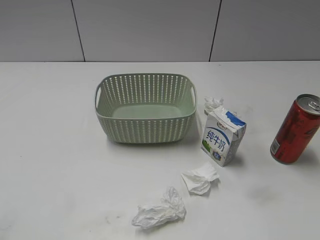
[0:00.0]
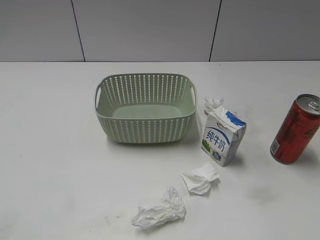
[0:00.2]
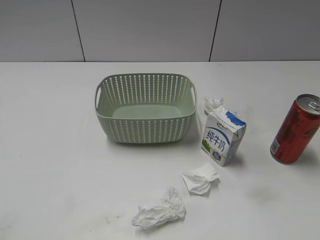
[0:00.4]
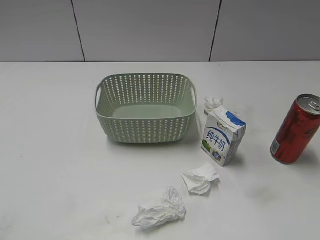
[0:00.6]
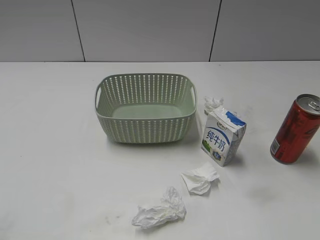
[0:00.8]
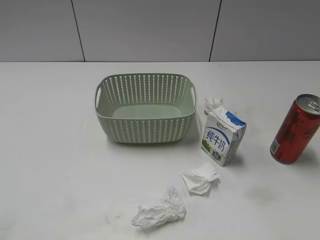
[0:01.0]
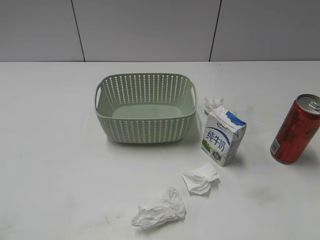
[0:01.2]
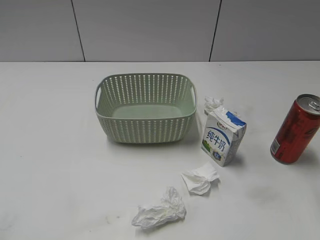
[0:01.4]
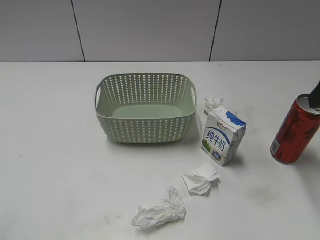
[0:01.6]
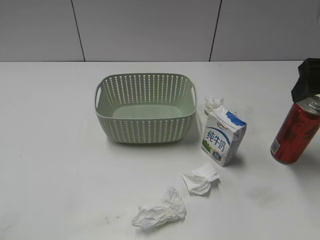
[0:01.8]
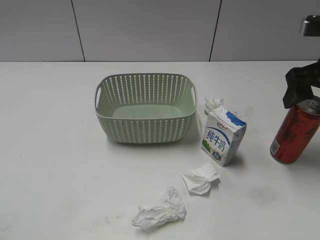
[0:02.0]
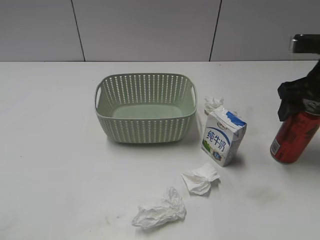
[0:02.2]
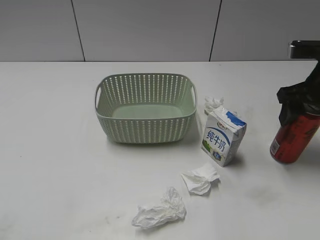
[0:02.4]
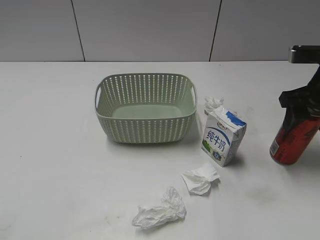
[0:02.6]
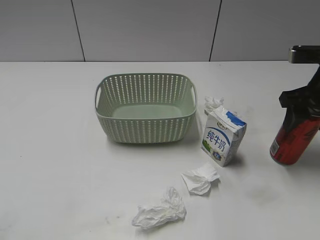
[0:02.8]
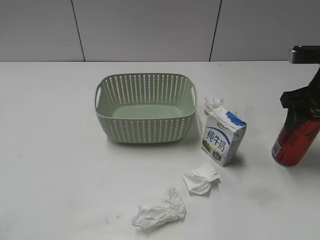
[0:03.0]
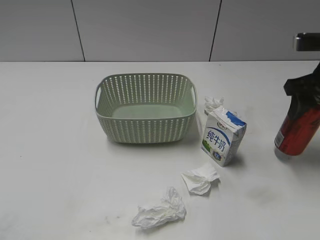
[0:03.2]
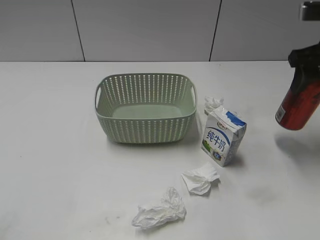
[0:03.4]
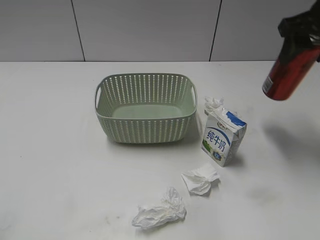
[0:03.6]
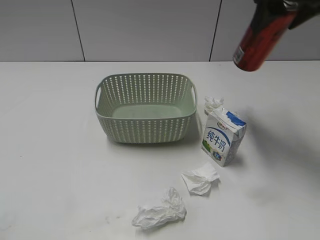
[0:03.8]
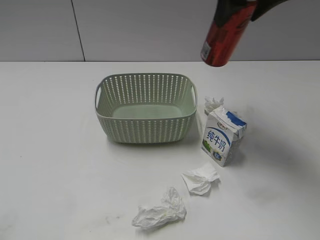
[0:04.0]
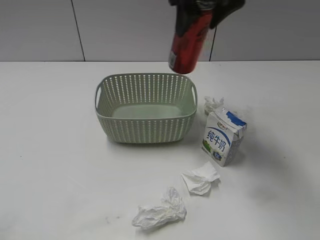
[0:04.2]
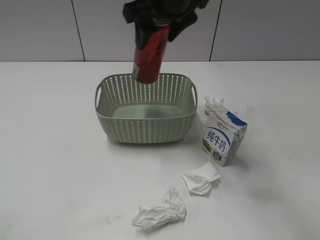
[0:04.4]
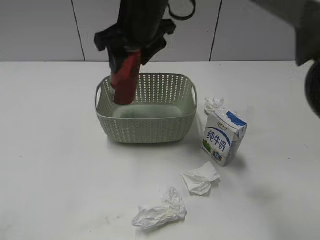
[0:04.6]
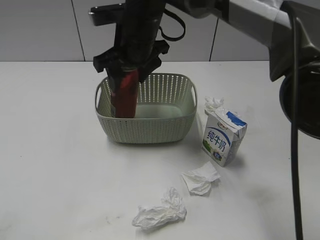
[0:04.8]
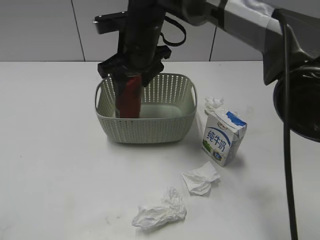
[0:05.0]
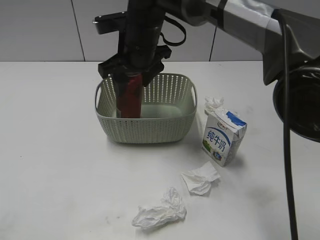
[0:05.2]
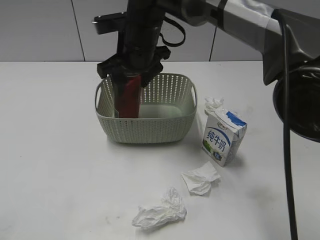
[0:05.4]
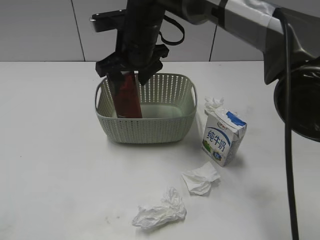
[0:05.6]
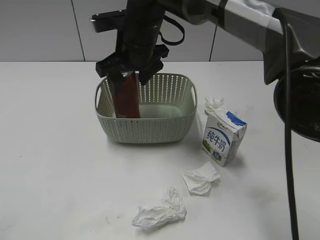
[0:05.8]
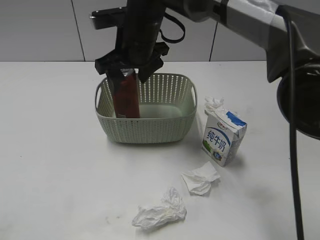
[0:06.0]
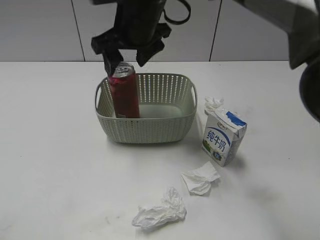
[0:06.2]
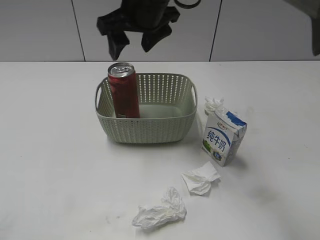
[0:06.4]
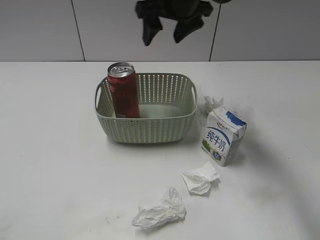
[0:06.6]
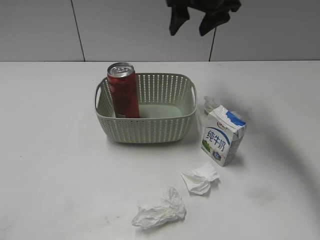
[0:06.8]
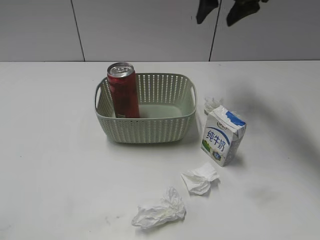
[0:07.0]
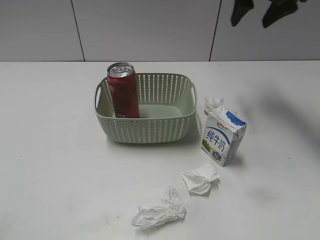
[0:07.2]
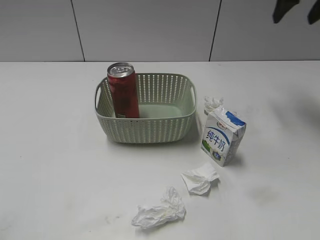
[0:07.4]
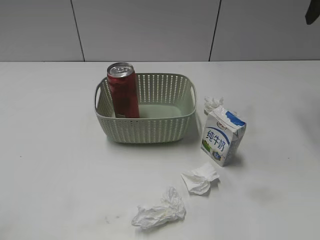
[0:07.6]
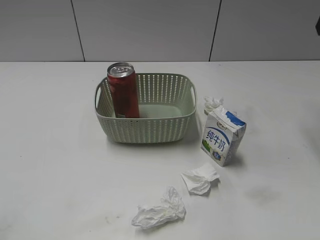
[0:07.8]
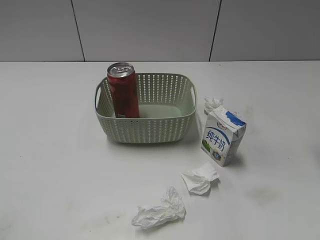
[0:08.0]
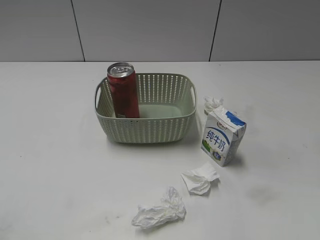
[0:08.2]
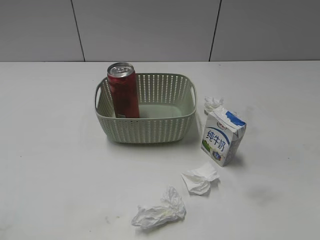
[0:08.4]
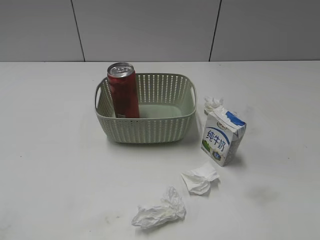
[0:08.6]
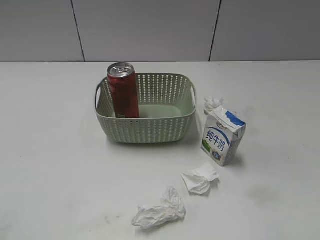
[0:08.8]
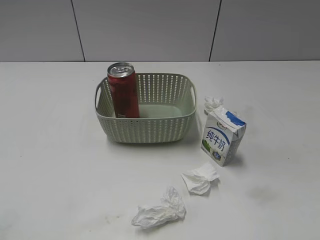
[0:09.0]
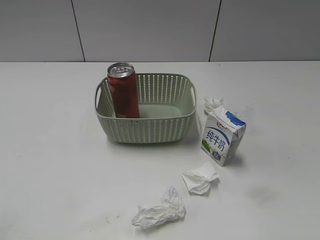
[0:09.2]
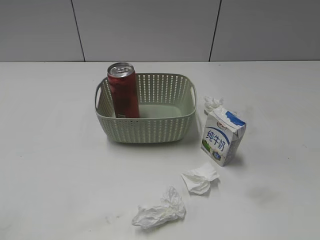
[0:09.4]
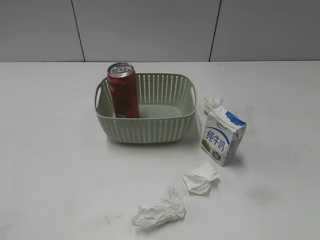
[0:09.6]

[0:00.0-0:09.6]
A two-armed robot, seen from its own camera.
Step, 0:01.6 to 0:03.0: Grasp the cola can with right gripper.
Step, 0:03.2 to 0:06.4: Place the cola can in the basket with right gripper.
0:01.6 to 0:03.2: The right gripper is displaced forward and downward by some 10 cm, and closes up.
0:03.2 to 0:04.8: The right gripper shifts some 30 cm to the left.
0:04.8 to 0:06.4: The right gripper is displaced upward by approximately 5 cm, and opens up.
0:06.4 to 0:08.0: The right gripper shifts approximately 30 cm to the right.

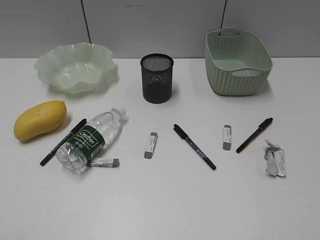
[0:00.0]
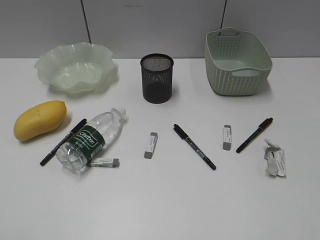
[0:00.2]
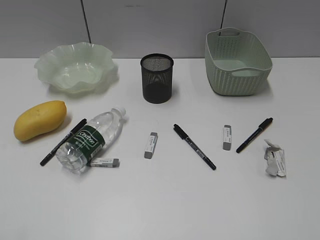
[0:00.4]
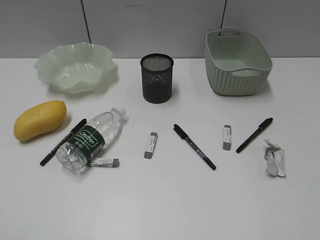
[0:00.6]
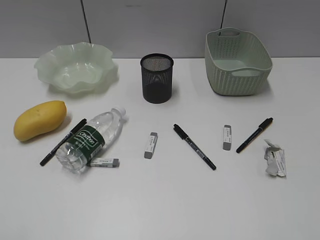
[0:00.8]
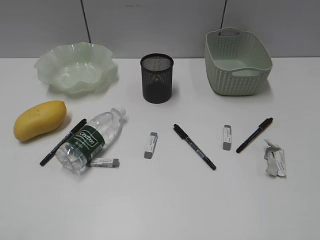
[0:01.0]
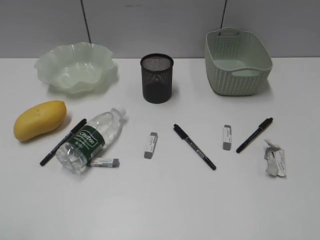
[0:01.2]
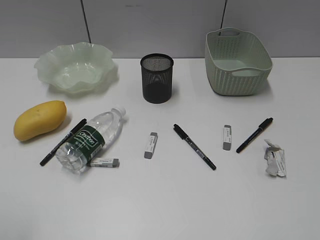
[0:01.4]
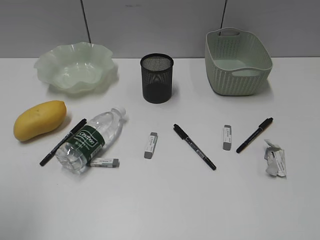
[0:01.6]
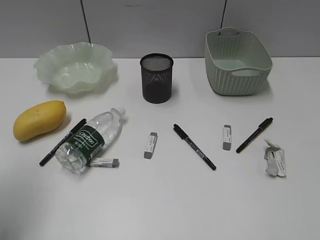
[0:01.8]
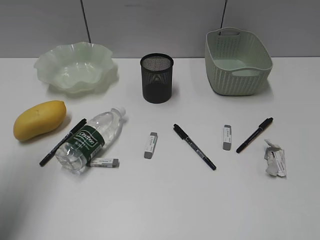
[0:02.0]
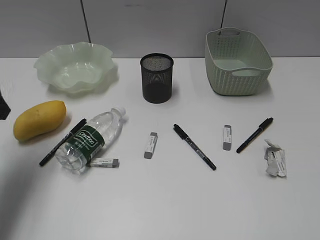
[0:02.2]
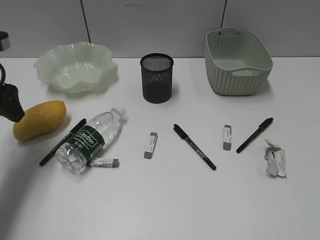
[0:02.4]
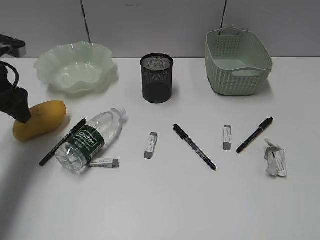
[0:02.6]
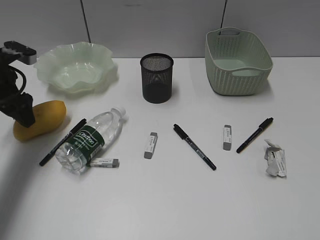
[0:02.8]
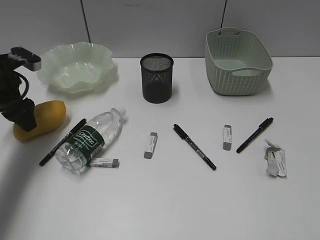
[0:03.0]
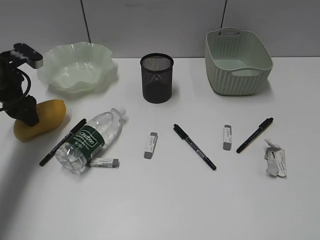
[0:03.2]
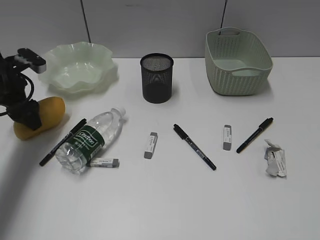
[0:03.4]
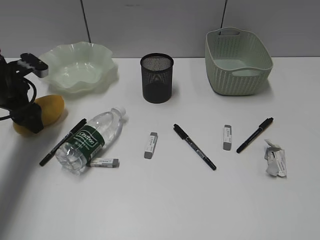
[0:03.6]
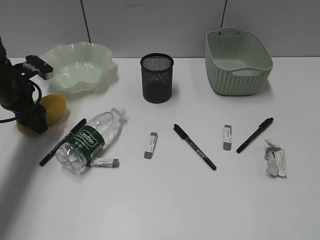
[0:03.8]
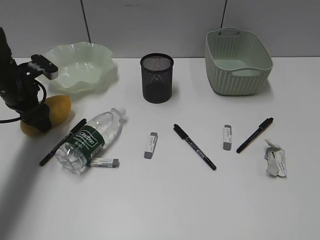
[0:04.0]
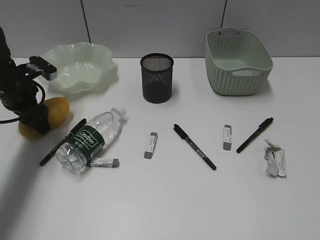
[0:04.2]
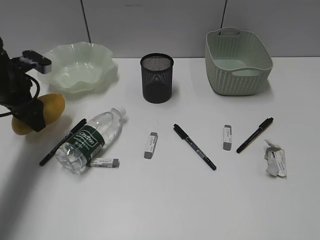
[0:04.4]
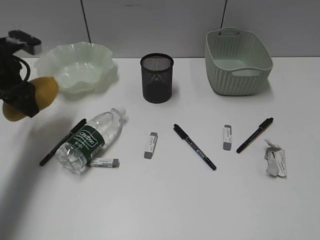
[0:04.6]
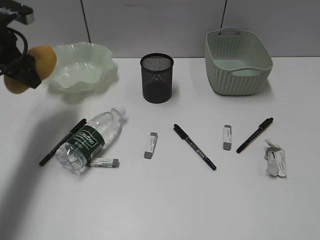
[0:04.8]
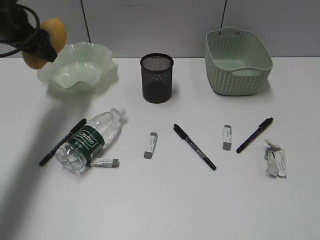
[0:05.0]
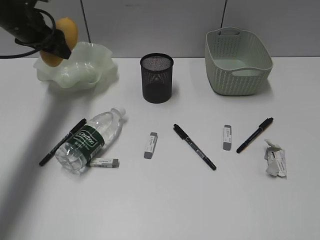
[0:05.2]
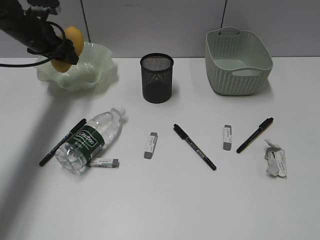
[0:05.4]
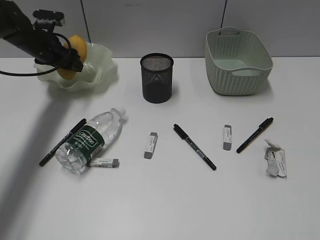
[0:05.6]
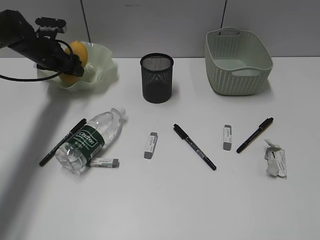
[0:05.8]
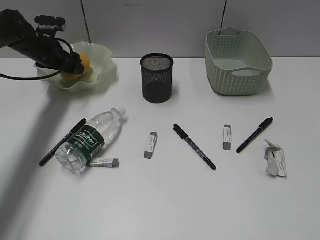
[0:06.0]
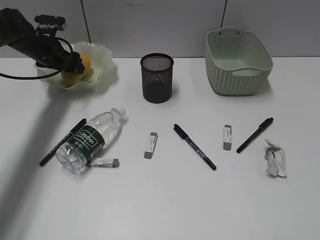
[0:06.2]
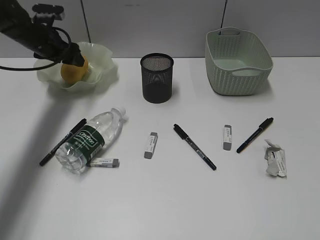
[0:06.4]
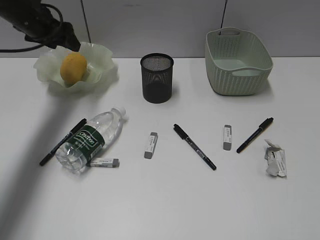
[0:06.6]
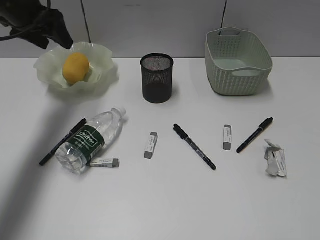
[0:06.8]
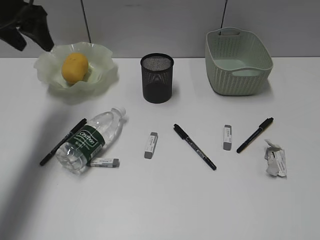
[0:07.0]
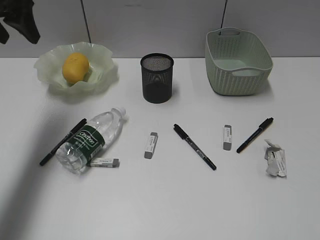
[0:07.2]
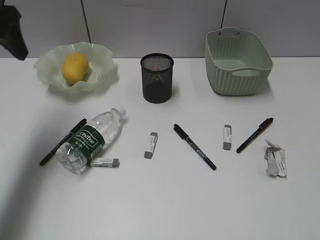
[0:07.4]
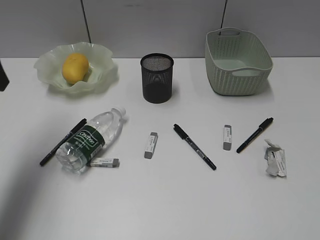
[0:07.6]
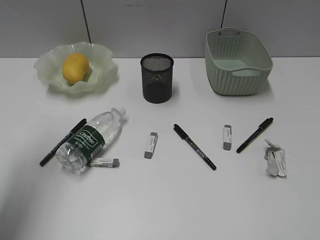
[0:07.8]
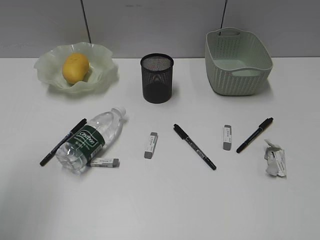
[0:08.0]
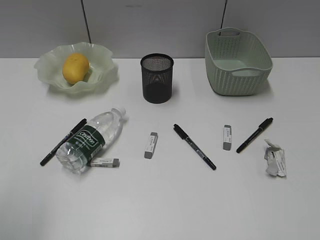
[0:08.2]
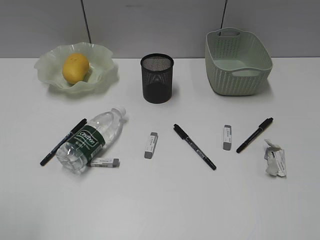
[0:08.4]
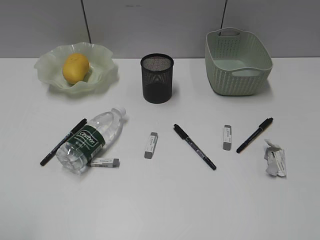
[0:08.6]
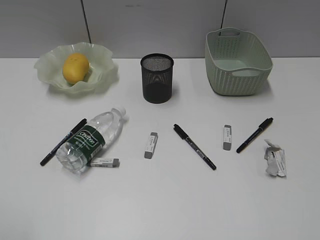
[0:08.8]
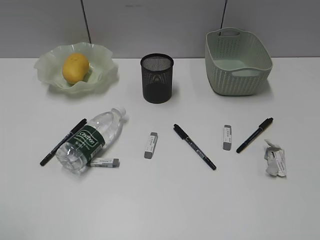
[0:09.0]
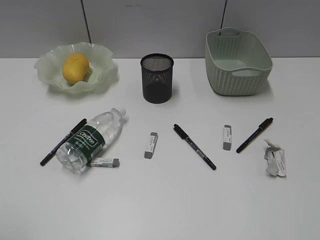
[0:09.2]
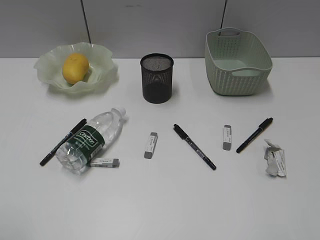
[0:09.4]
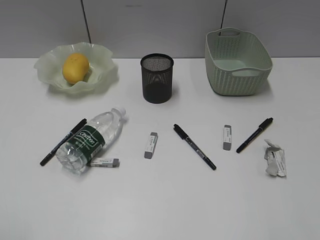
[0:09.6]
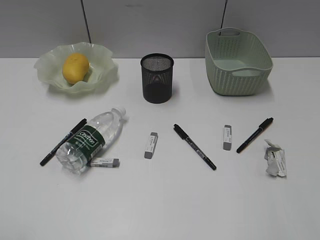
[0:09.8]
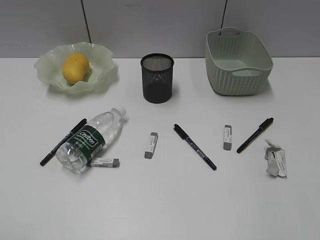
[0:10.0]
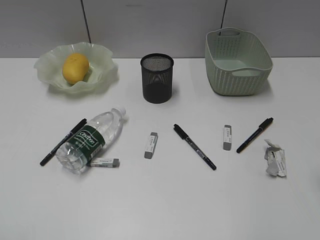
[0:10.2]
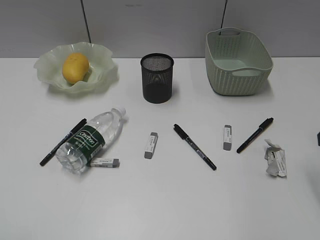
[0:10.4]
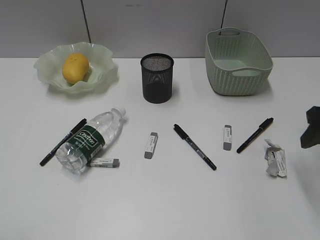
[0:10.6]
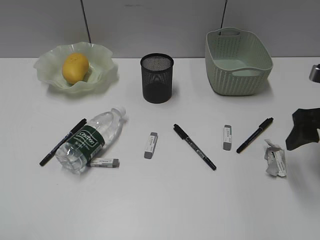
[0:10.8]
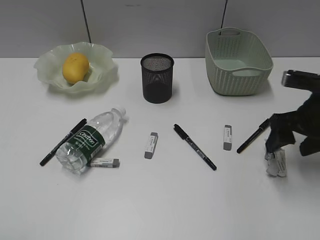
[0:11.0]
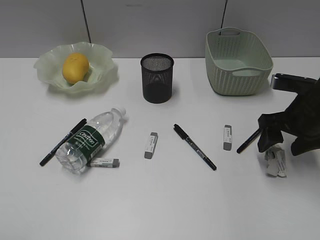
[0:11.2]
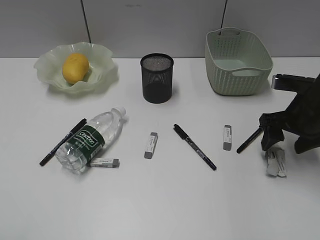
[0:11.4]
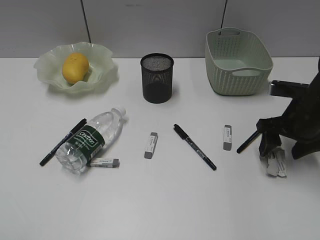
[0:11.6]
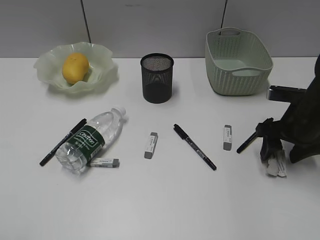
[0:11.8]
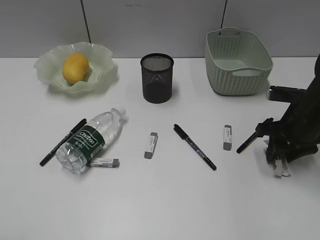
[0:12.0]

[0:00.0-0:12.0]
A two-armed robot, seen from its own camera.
Step, 0:01.2 to 0:04.2: Grasp the mango with left gripper.
Step, 0:04.4 to 0:06.6: Place the mango in the plate with left gripper.
0:01.6 to 0:03.0: The left gripper is displaced forward and downward by approximately 30 cm.
0:03.0 to 0:04.4: There are only small adjustments of the grippers.
0:04.4 to 0:06.0: The left gripper moves forward, some 15 cm.
0:06.0 to 0:07.6: The left gripper moves backward and upward, some 30 cm.
0:07.6 to 0:09.0: The left gripper travels backward by approximately 25 cm.
0:10.4 to 0:12.0: The right gripper goes roughly 15 cm downward and forward, and closes up.

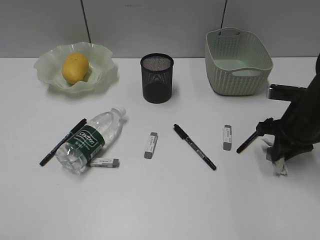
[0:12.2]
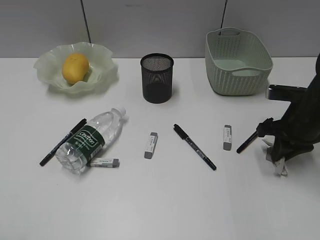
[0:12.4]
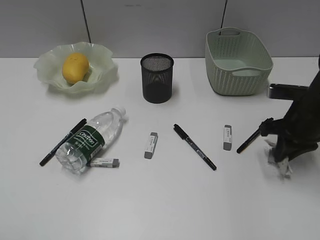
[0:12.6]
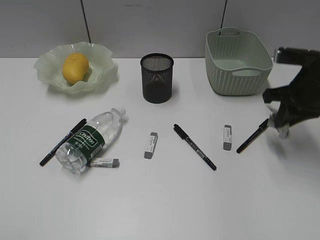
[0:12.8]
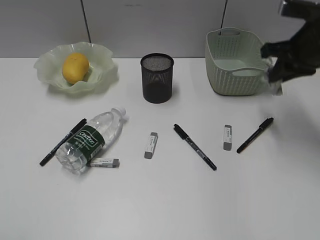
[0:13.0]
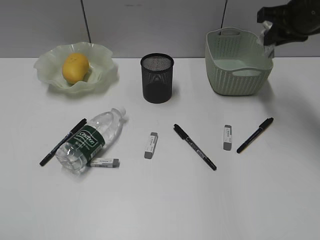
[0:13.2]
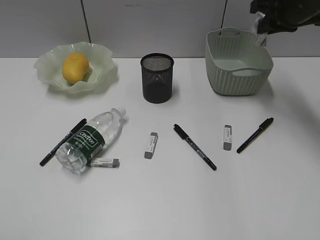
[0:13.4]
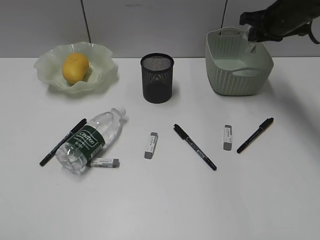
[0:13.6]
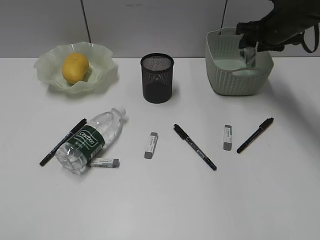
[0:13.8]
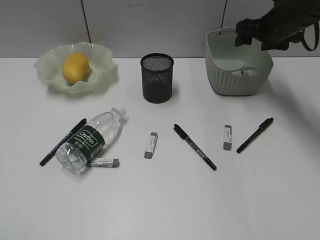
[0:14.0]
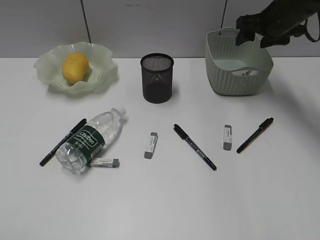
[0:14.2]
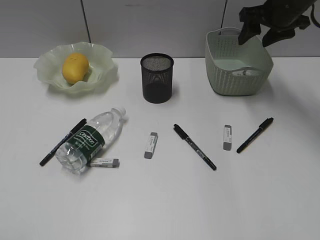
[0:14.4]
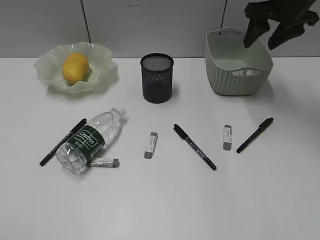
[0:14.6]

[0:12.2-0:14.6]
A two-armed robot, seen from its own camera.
Step, 0:12.6 to 0:14.0: Place the waste paper in the basket with right gripper.
0:12.2 to 0:13.4: The right gripper goes roughly 20 cm upward and forward.
0:13.4 to 0:14.6: The right gripper opens up.
